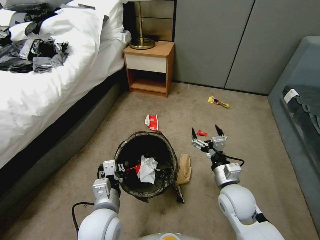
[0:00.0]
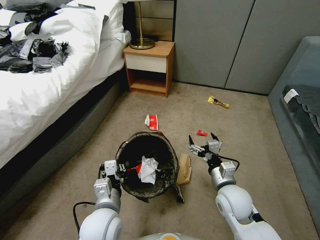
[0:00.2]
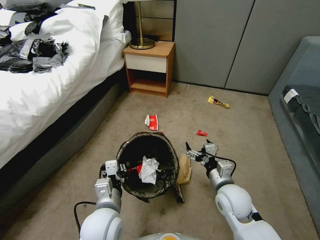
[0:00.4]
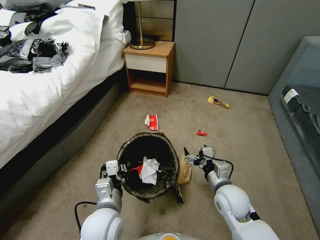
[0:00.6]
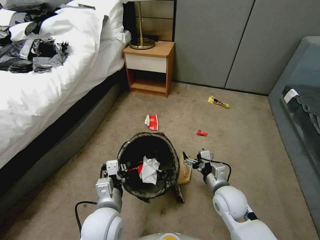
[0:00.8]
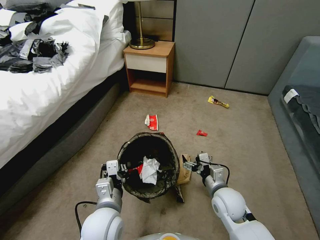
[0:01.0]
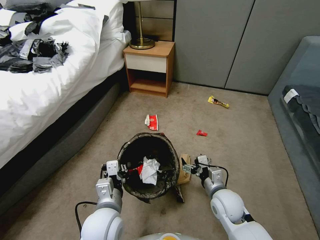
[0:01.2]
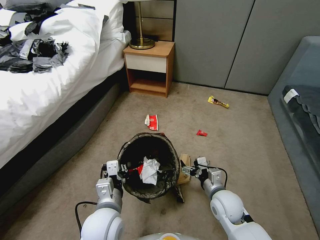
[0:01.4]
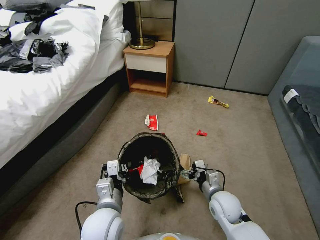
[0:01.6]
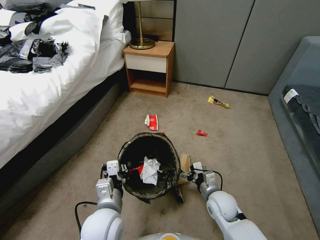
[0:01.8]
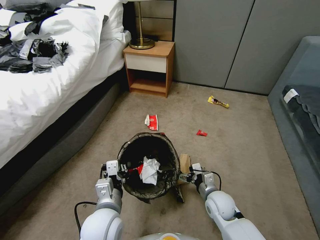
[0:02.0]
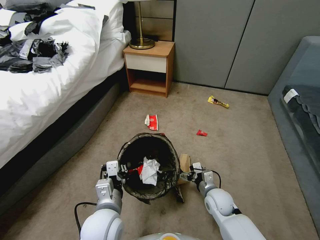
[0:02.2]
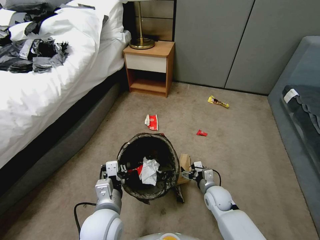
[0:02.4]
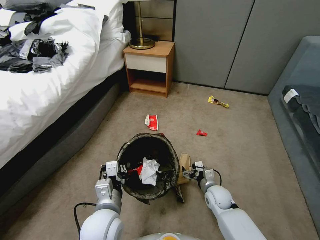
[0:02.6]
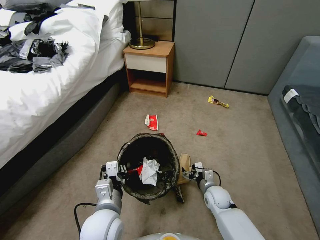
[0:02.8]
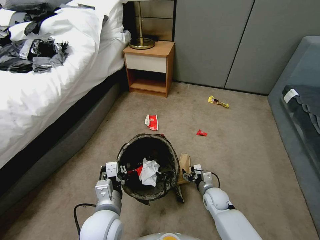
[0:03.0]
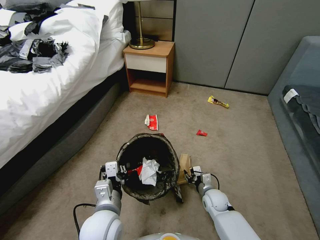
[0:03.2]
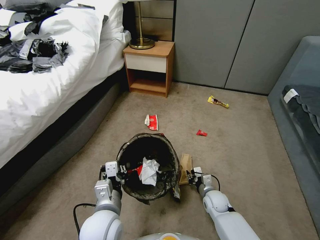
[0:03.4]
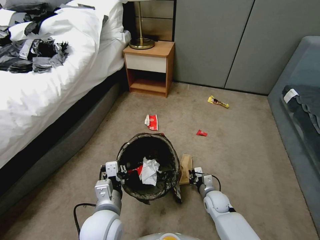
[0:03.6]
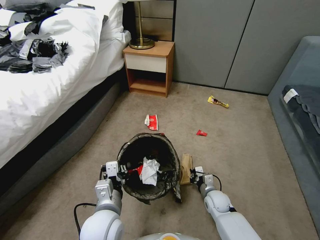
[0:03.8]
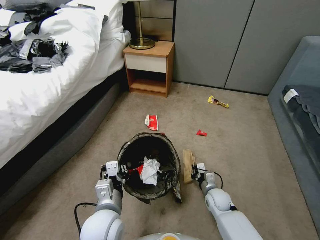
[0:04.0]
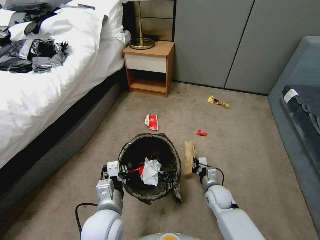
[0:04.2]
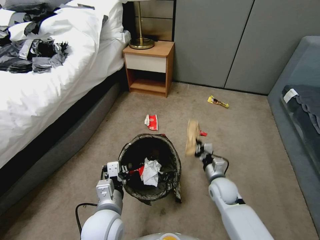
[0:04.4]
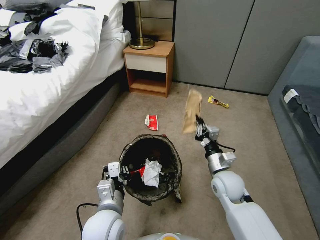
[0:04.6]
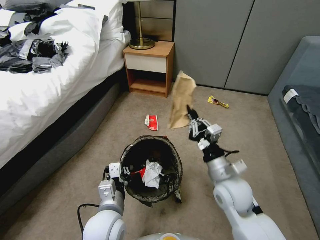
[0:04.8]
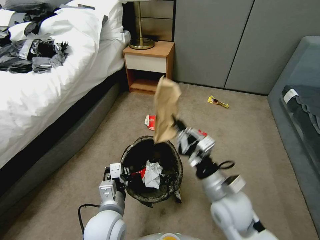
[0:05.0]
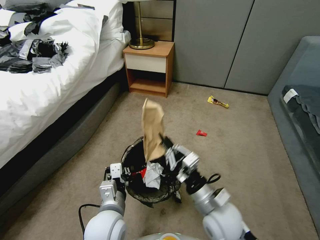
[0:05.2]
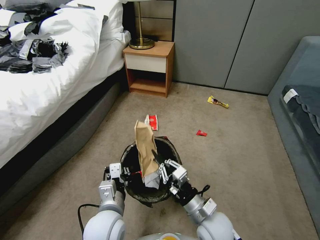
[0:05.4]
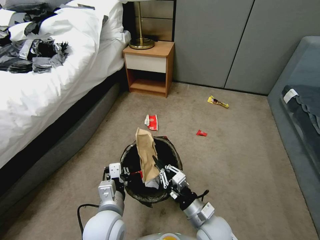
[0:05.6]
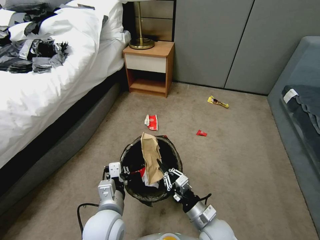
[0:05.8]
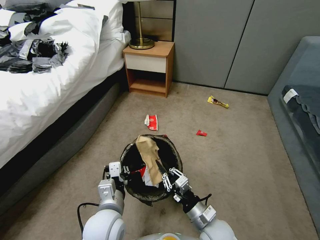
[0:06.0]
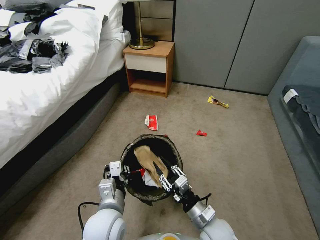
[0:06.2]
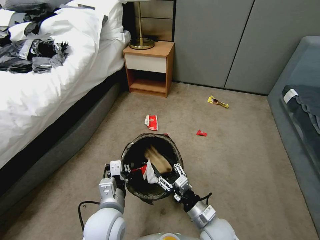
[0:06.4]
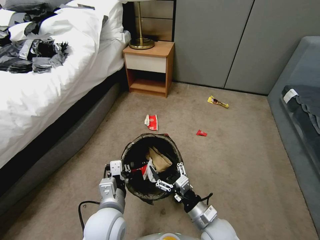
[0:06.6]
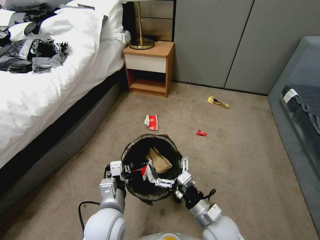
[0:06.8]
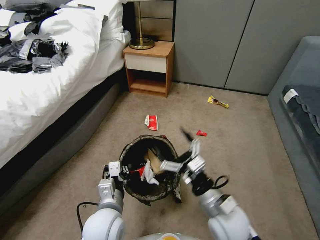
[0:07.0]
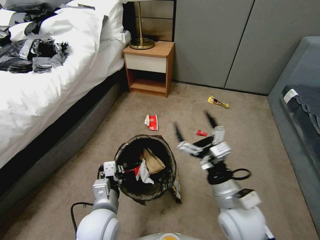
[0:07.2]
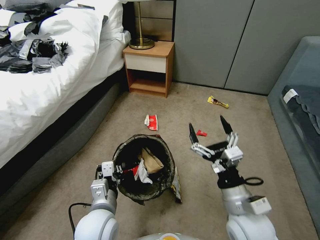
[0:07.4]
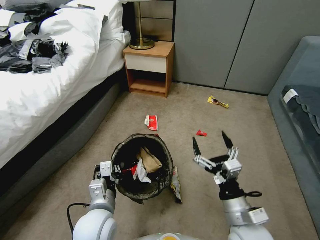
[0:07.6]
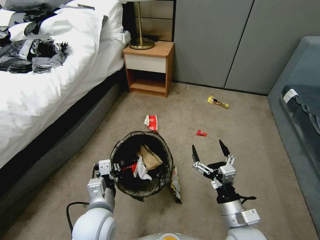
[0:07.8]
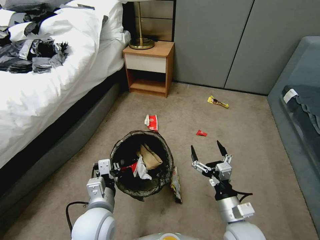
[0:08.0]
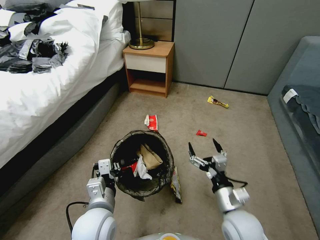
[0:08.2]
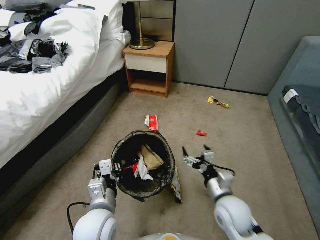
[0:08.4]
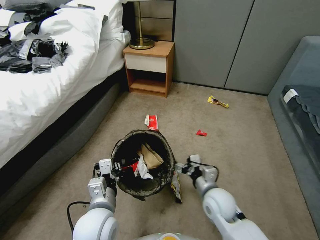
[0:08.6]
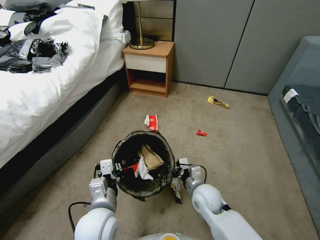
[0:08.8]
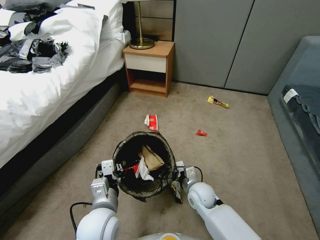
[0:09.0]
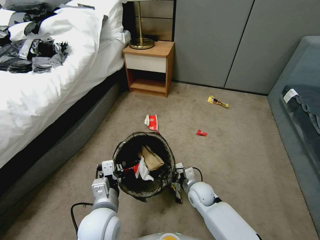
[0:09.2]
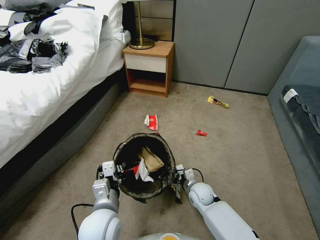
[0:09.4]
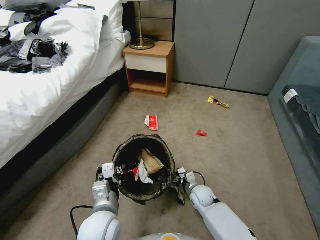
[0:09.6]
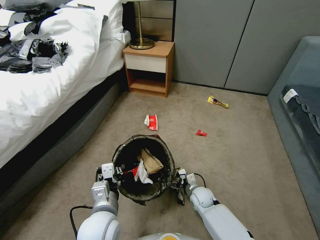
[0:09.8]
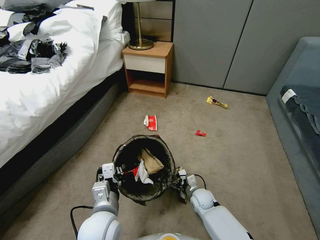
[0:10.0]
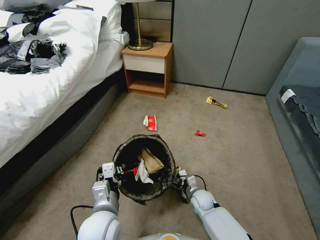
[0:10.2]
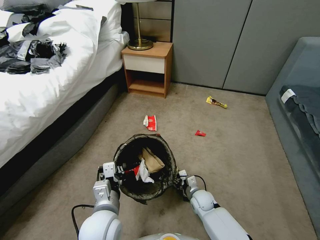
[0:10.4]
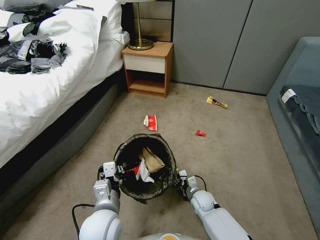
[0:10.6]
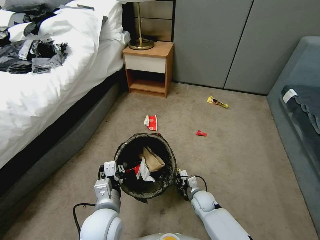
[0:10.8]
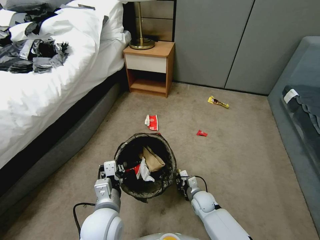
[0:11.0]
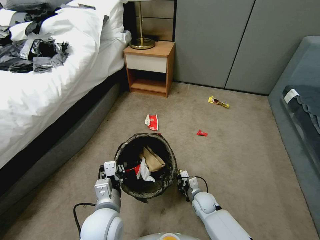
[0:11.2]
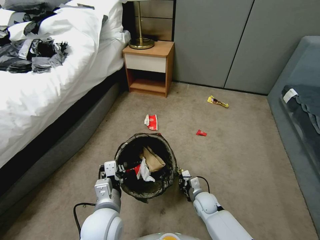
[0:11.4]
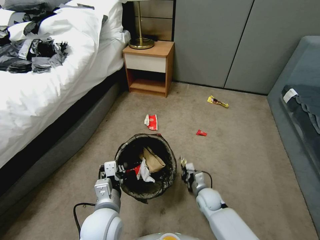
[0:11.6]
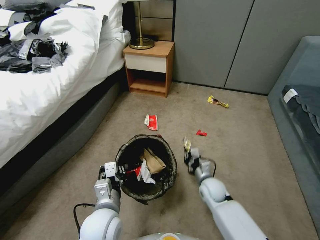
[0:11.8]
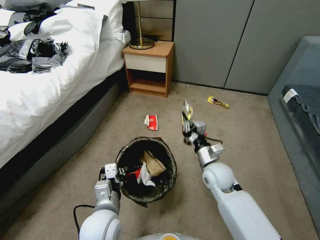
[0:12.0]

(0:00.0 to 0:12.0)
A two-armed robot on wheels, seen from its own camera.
Task of the whole recording: Pick up the trash bin, then pick up the garbage from the floor and place it into the trash bin.
0:00.0 - 0:01.6: The right gripper shifts about 10 cm downward.
0:01.6 - 0:03.0: The right gripper goes about 10 cm downward.
0:03.0 - 0:04.4: The right gripper goes about 10 cm upward, and closes.
0:04.4 - 0:06.0: The right gripper is displaced backward and to the left by some 15 cm, and travels upward and back again, approximately 15 cm each way.
0:06.0 - 0:07.6: The right gripper shifts some 10 cm upward and to the right, and opens.
0:07.6 - 0:09.0: The right gripper heads downward, forward and to the left, covering roughly 20 cm.
0:09.0 - 0:10.4: The right gripper goes roughly 10 cm downward, and closes.
0:10.4 - 0:12.0: The right gripper moves upward, some 20 cm, and closes its fingers.

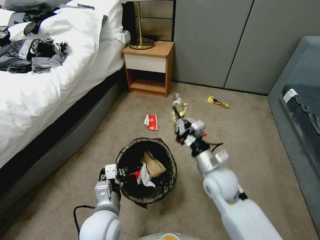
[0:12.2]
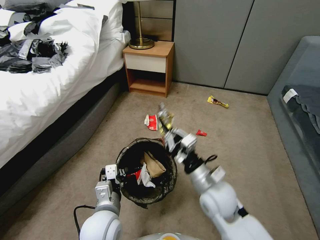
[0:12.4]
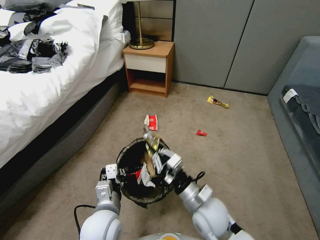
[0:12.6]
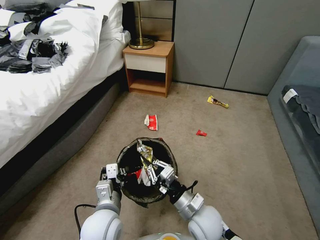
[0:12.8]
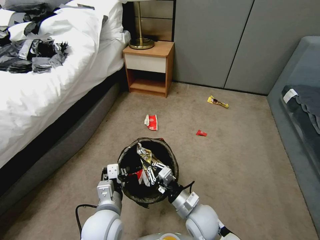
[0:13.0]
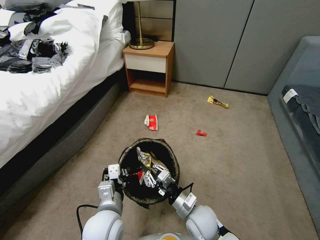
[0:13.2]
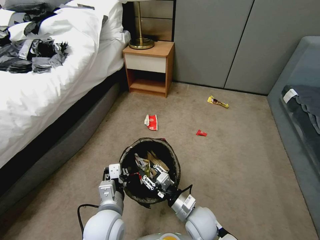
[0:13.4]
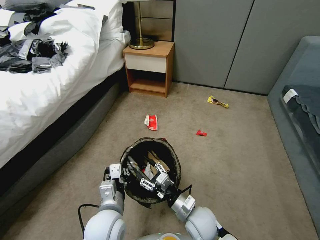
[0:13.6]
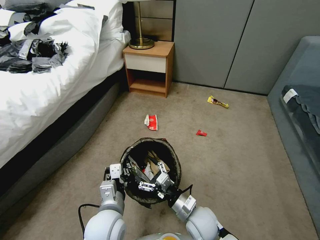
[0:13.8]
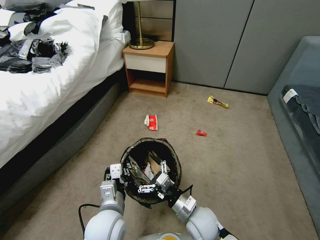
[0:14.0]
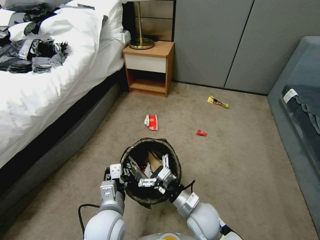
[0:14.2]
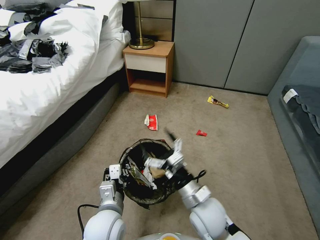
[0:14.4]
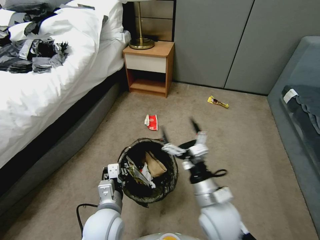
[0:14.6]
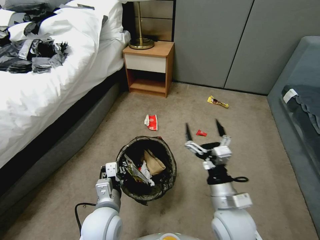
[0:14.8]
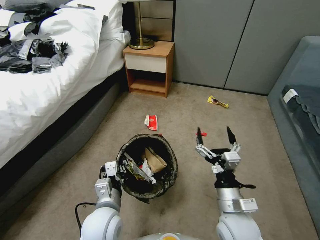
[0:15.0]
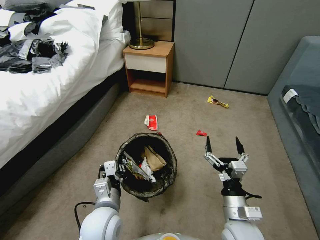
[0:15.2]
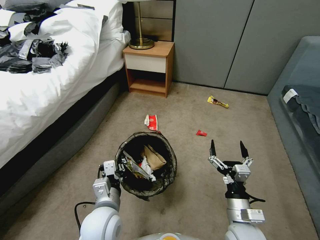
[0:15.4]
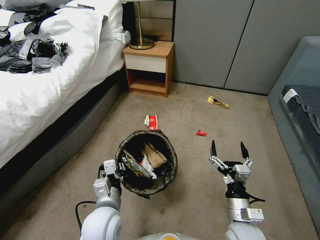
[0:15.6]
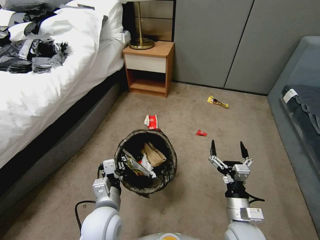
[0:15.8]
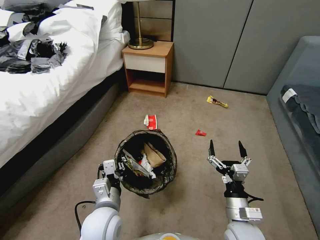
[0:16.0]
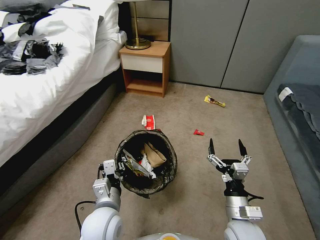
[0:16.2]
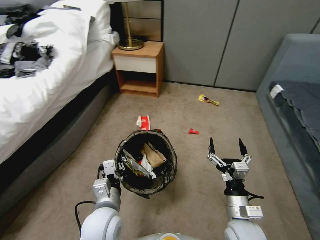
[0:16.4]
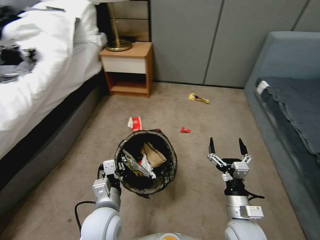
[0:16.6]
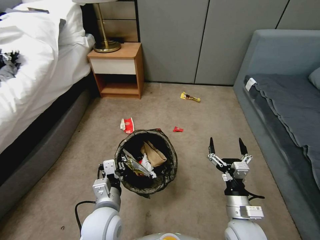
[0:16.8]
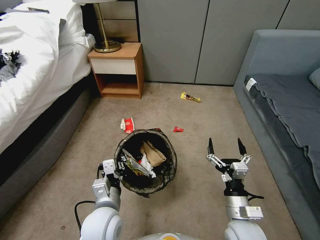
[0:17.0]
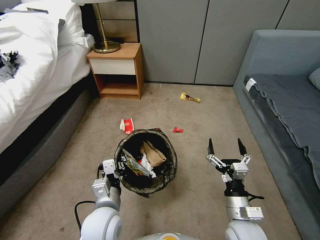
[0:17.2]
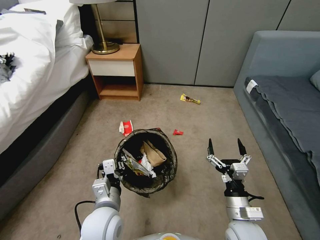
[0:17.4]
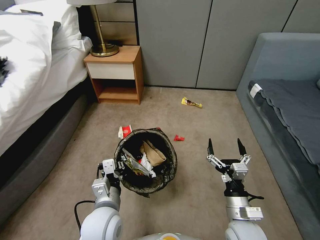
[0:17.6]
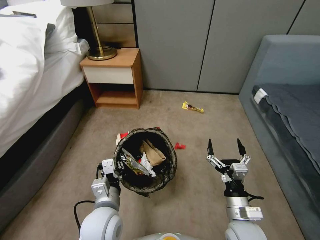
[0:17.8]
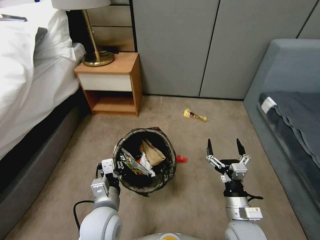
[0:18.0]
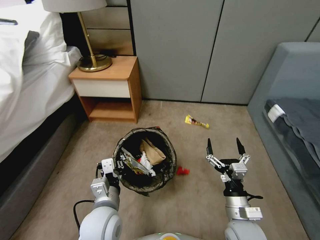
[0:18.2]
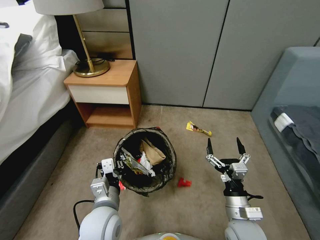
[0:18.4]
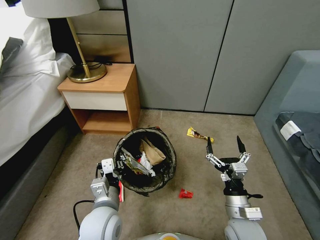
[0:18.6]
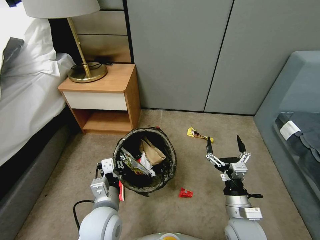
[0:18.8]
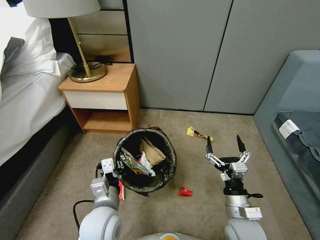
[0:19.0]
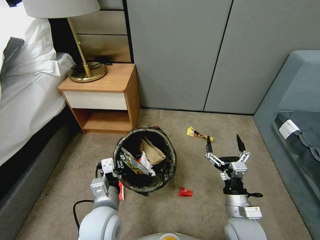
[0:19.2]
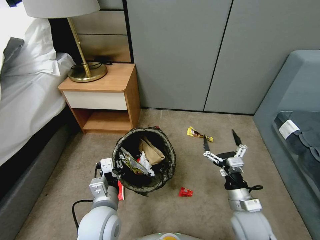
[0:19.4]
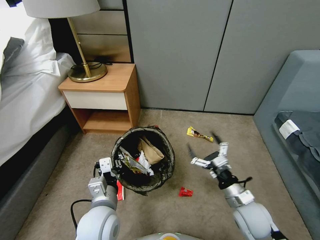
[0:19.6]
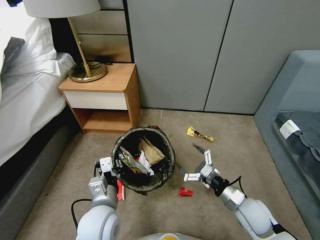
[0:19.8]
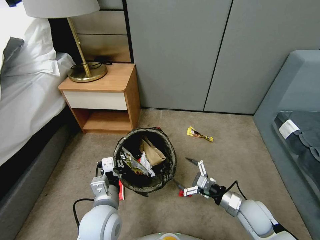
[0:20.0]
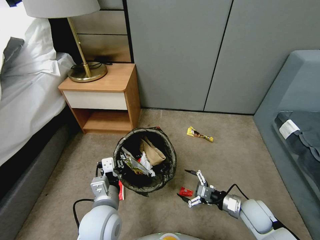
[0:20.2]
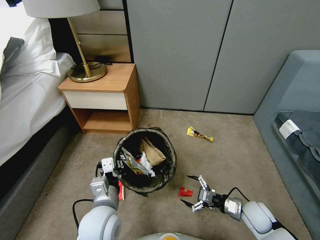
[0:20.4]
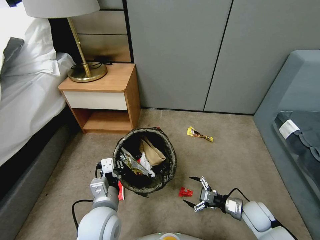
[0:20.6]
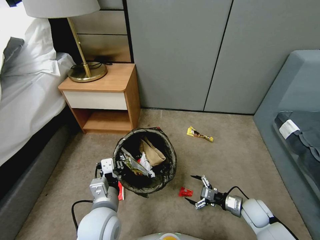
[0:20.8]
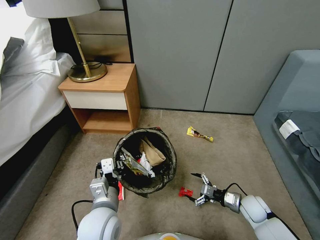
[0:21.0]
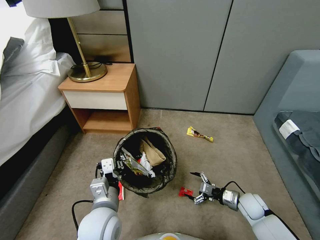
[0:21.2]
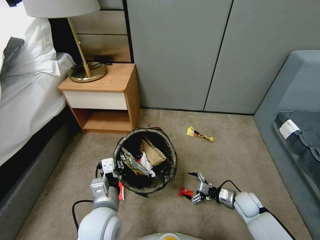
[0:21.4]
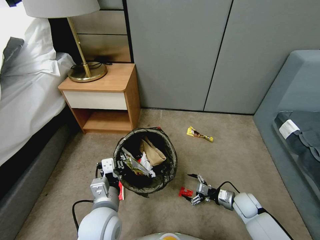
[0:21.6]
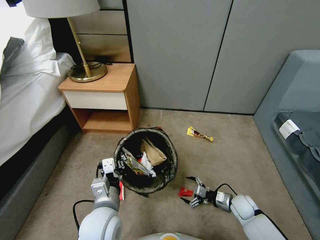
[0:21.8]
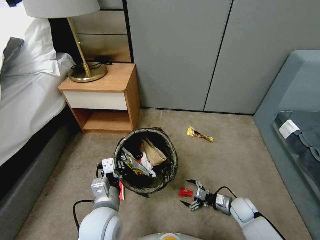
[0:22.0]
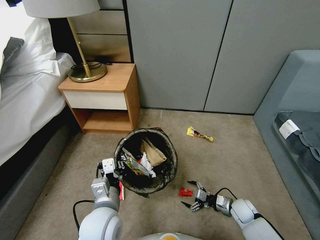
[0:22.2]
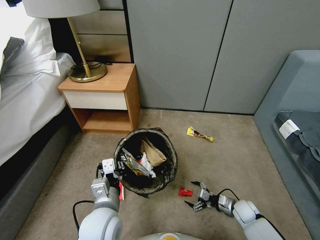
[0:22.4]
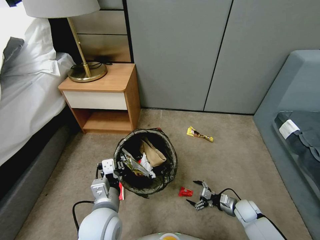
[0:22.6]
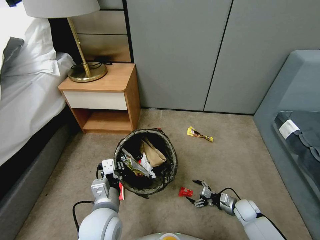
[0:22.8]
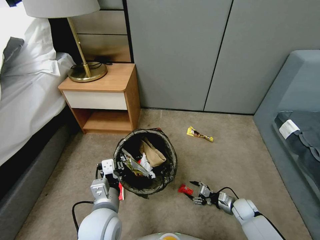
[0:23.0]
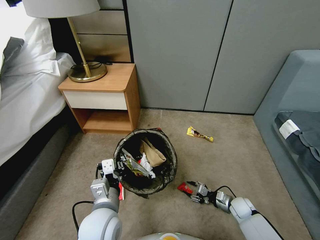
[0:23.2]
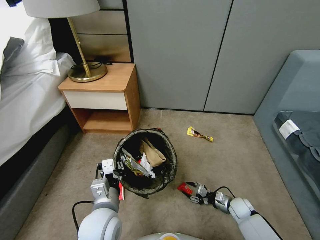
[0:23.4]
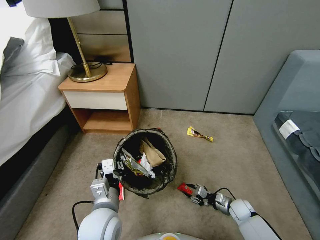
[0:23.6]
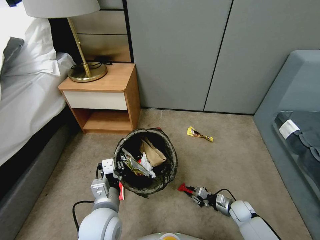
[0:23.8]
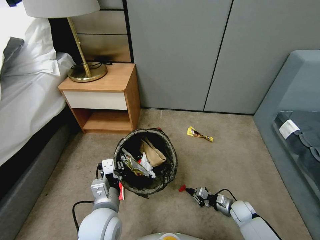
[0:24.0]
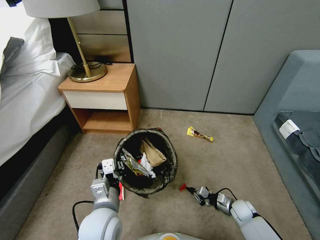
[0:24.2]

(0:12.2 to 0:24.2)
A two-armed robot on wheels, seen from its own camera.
Task of the whole recording: Pick up the trash bin, then pick up the garbage from the floor and place it into the trash bin.
0:12.2 - 0:13.8: The right gripper heads downward, backward and to the left, covering about 15 cm, and opens up.
0:13.8 - 0:15.2: The right gripper shifts about 10 cm to the right and upward.
0:18.2 - 0:19.8: The right gripper shifts about 10 cm forward and to the right.
0:19.8 - 0:21.2: The right gripper travels downward, to the right and forward by some 15 cm.
0:21.2 - 0:22.6: The right gripper shifts some 5 cm downward.
0:22.6 - 0:24.2: The right gripper closes up.
